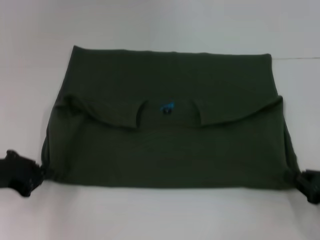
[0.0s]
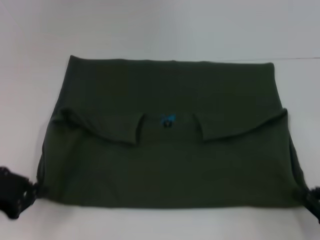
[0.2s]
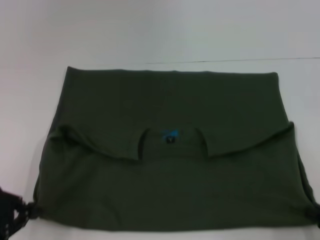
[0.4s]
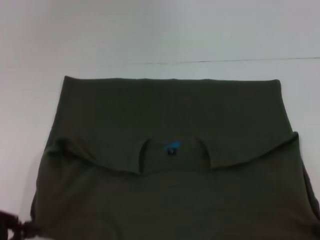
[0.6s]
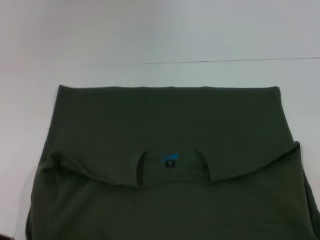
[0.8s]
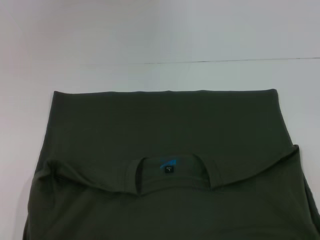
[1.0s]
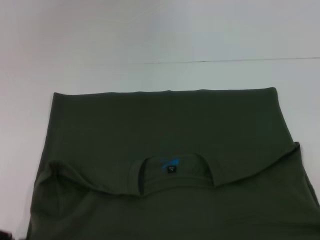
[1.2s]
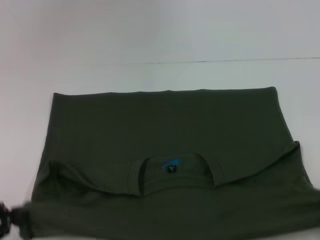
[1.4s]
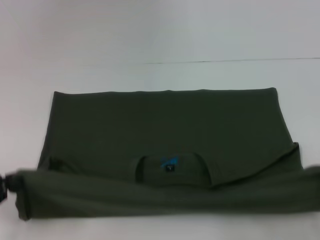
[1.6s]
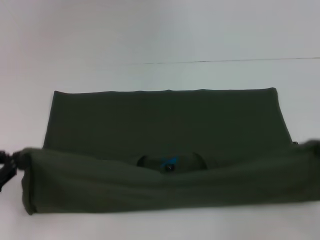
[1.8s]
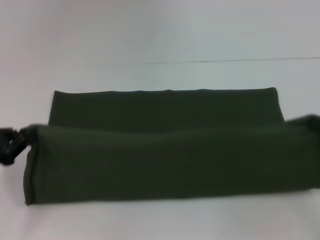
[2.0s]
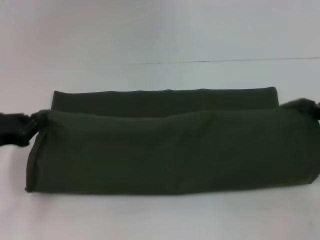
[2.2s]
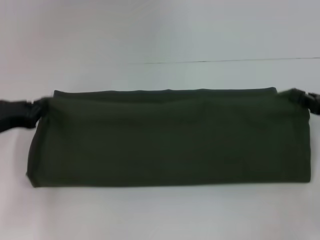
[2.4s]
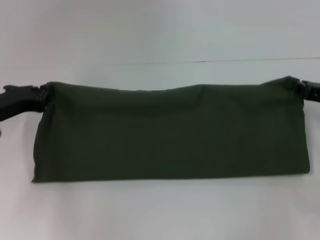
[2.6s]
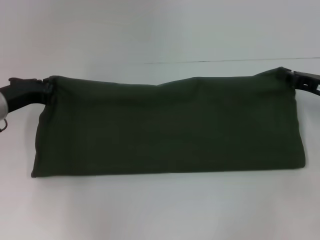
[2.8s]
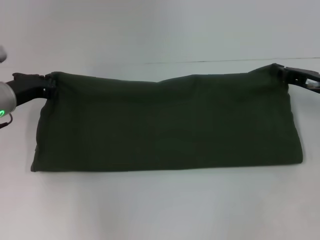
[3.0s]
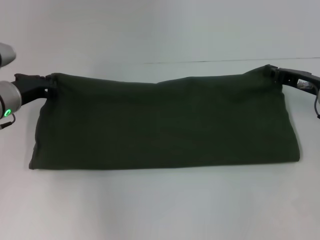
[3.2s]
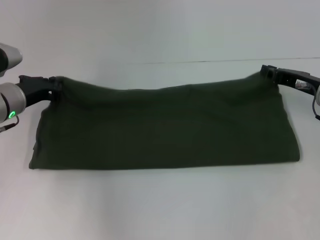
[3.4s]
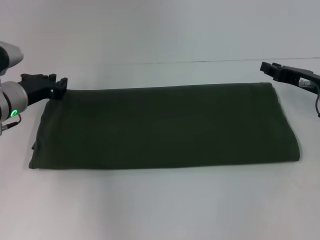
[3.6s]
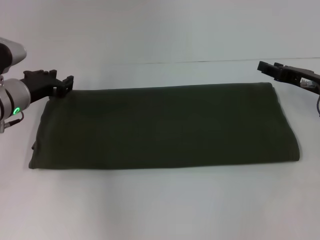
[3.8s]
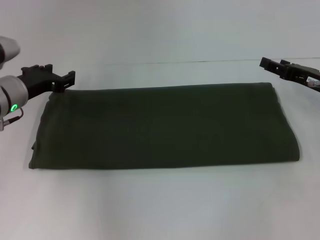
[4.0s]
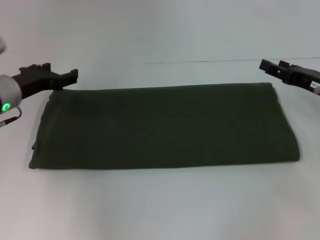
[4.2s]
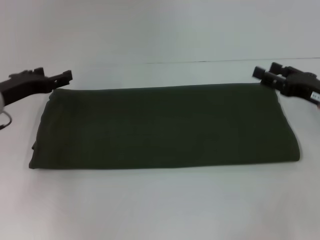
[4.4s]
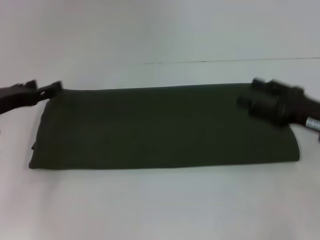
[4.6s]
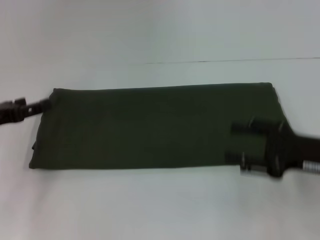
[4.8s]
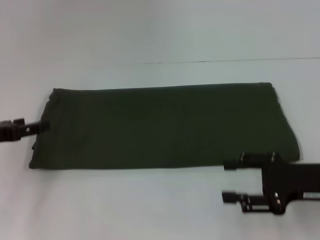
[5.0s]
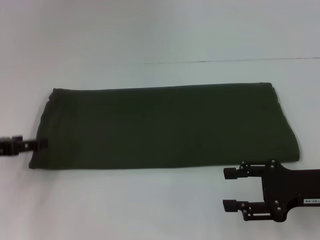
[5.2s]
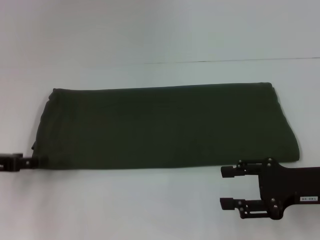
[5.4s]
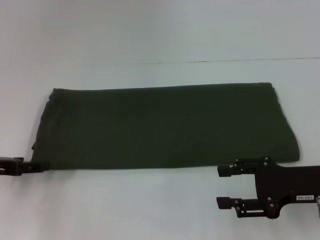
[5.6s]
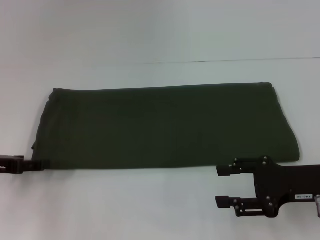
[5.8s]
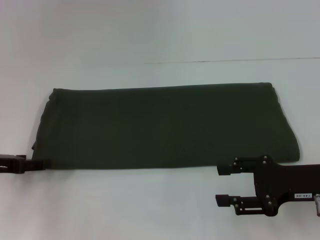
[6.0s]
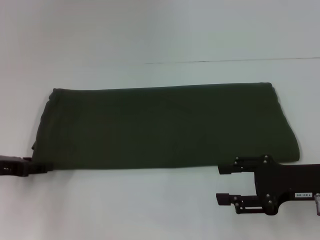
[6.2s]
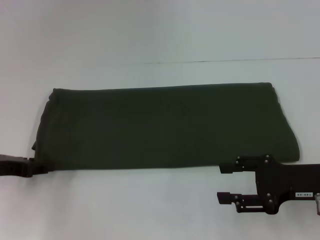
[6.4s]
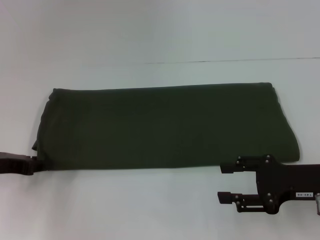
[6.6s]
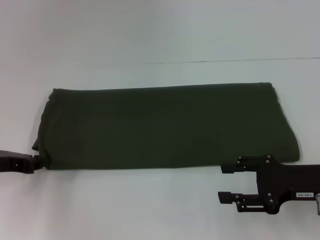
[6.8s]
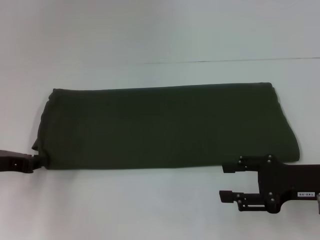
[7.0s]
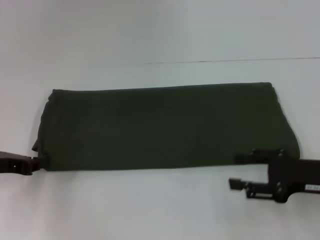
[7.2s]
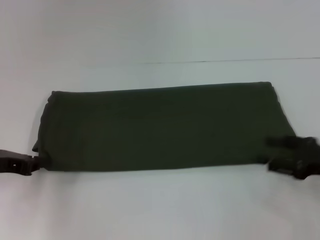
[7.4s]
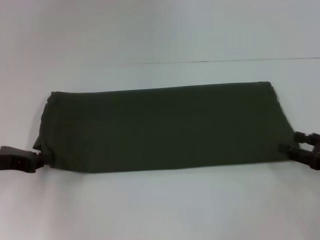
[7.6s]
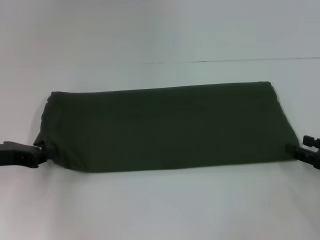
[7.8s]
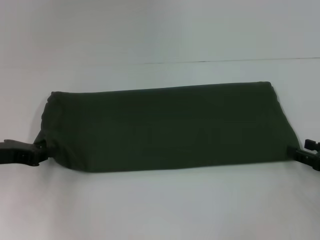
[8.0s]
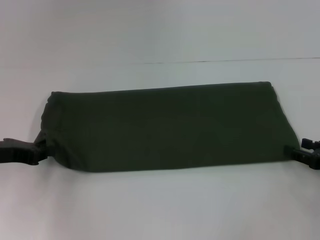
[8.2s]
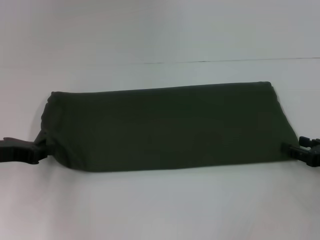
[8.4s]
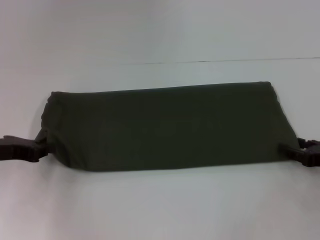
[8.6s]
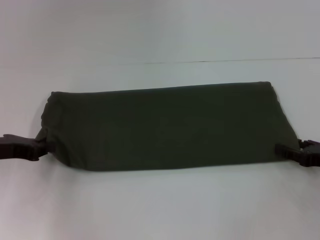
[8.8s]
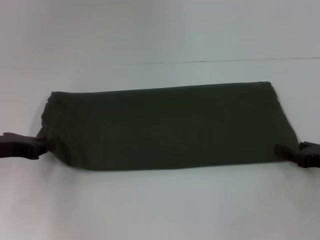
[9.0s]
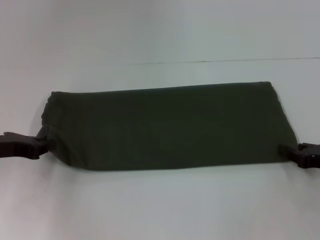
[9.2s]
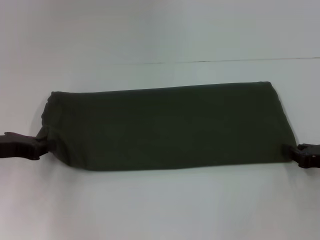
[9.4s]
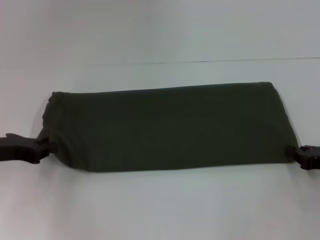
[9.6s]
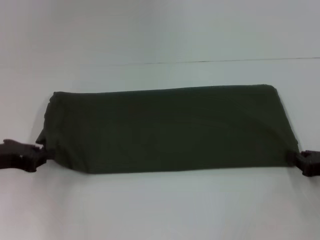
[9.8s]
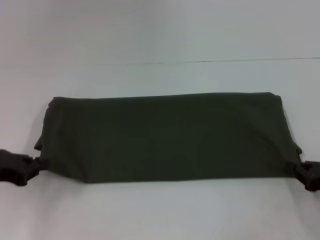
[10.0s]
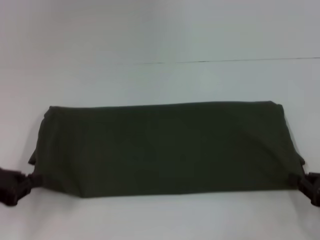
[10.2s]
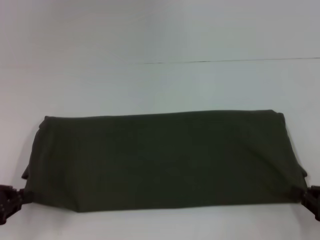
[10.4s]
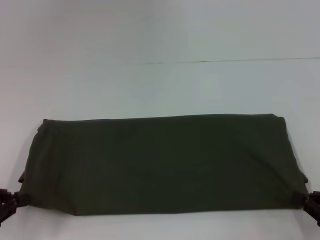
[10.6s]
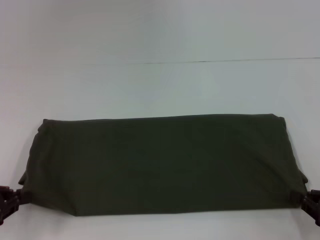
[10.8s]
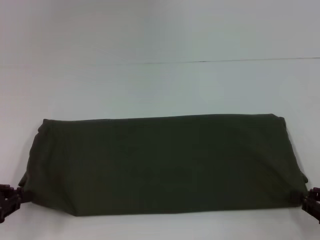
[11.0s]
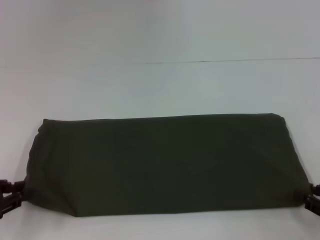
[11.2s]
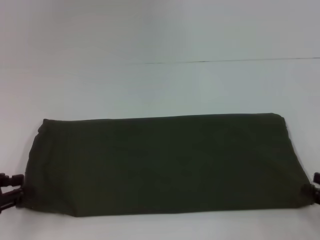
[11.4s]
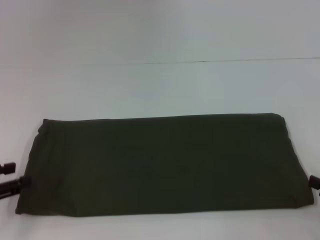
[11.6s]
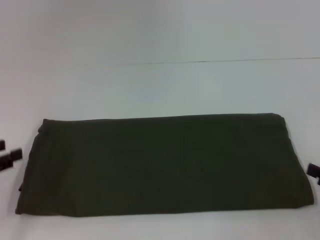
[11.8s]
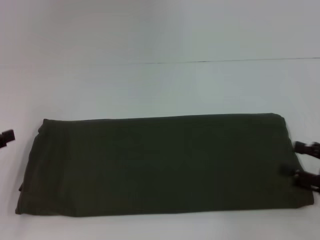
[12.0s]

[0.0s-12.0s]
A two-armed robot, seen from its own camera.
Step, 0.8s to 3.8s: Fold the clothes with your left hand.
Step, 0.8s to 3.8s: Fold the clothes with your right hand.
Step, 4.0s to 12.0s: Pull the clothes with your left hand.
Step, 4.0s to 12.0s: Pull the clothes with your right hand.
0.0s to 1.6s: The left gripper moves backward and to the left, some 10 cm.
1.6s to 3.0s: The right gripper goes approximately 20 cm forward, while the left gripper travels forward and to the right by about 20 cm.
3.0s to 4.4s: The right gripper opens; the left gripper opens up.
4.4s to 6.0s: Both grippers move backward, about 10 cm.
6.0s to 7.6s: The left gripper closes its fingers, while the right gripper shifts approximately 10 cm to the right.
7.6s to 9.0s: There are only small adjustments of the grippers.
9.0s to 10.4s: The grippers both shift backward by some 10 cm. The right gripper closes up.
10.4s to 12.0s: The left gripper opens its fingers; the right gripper opens up.

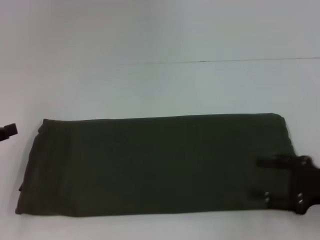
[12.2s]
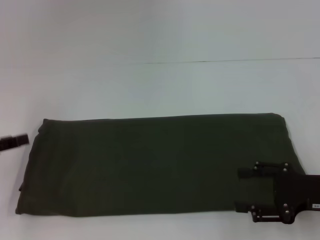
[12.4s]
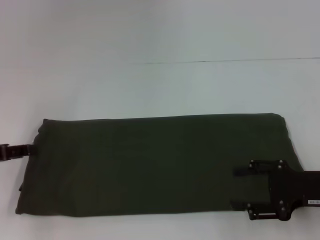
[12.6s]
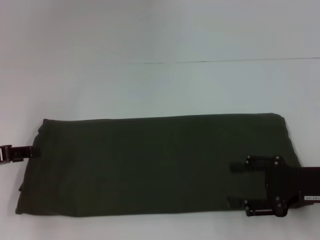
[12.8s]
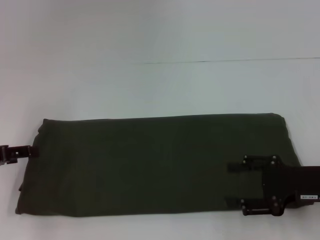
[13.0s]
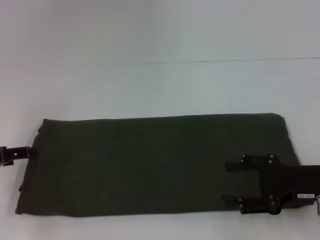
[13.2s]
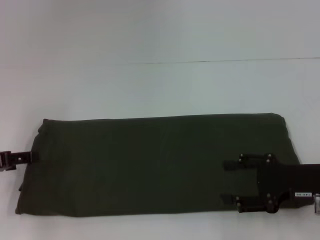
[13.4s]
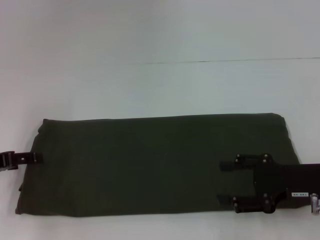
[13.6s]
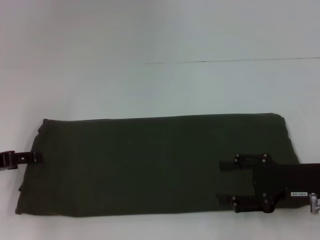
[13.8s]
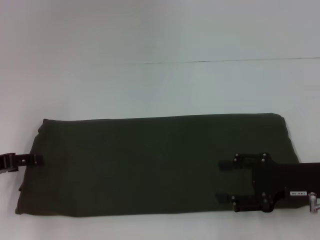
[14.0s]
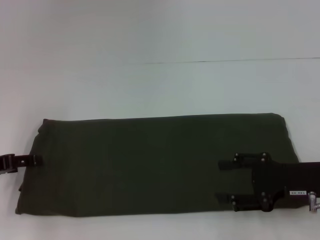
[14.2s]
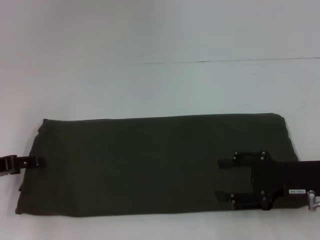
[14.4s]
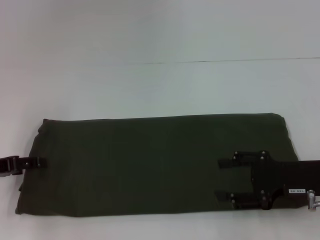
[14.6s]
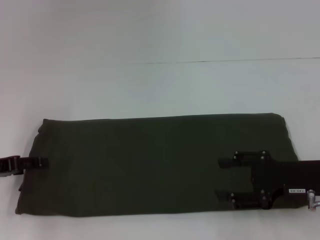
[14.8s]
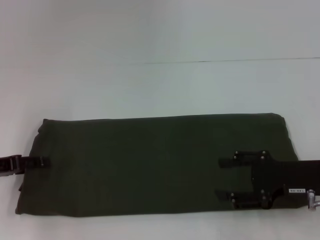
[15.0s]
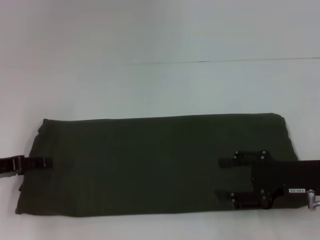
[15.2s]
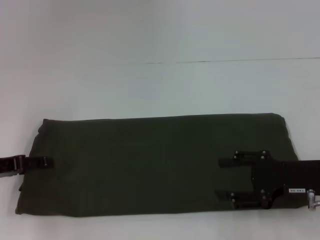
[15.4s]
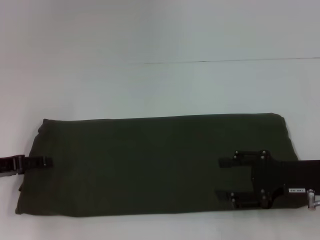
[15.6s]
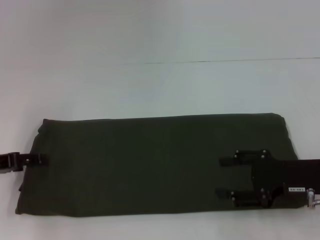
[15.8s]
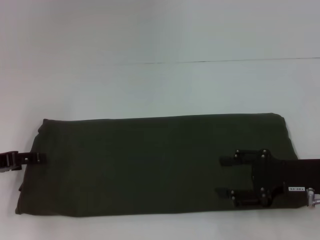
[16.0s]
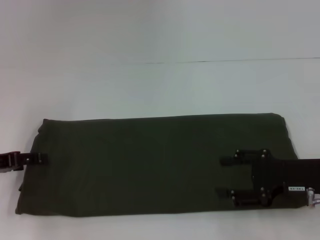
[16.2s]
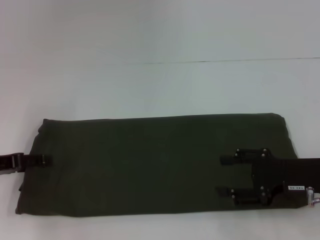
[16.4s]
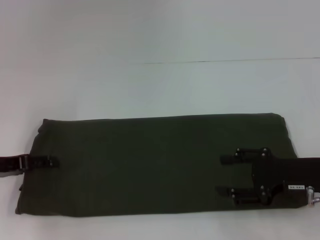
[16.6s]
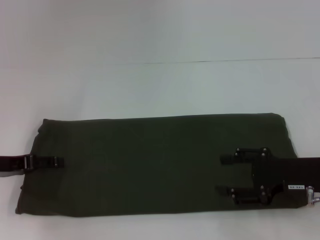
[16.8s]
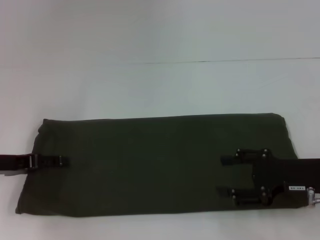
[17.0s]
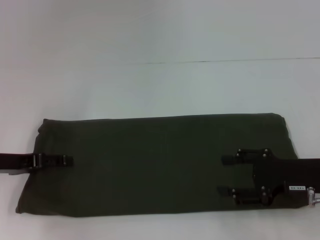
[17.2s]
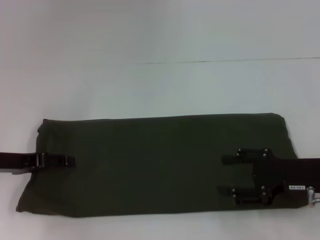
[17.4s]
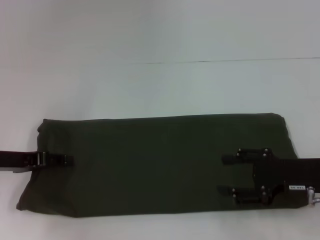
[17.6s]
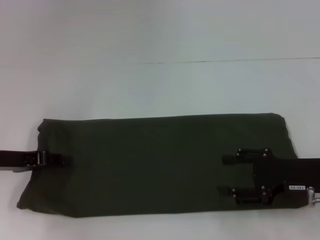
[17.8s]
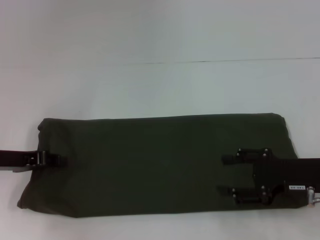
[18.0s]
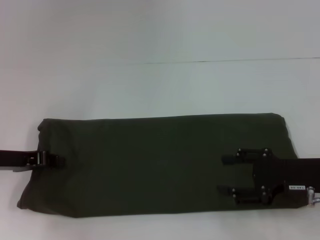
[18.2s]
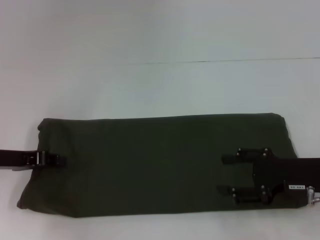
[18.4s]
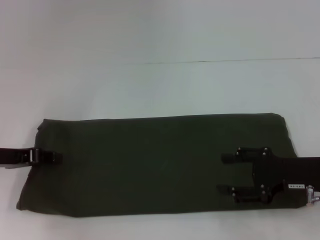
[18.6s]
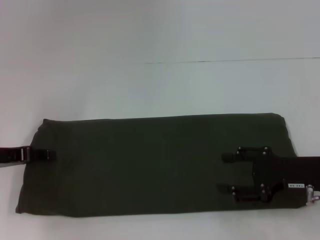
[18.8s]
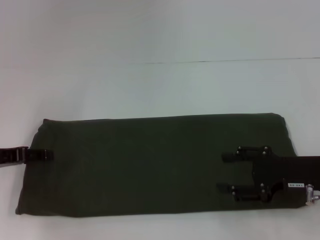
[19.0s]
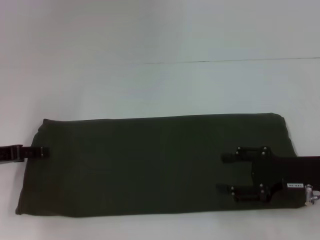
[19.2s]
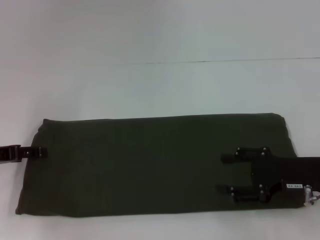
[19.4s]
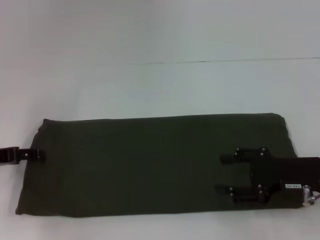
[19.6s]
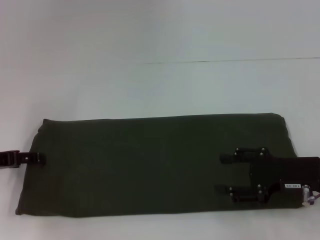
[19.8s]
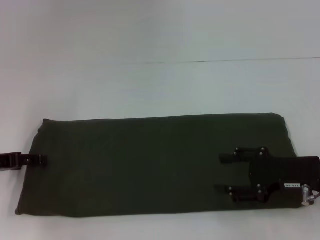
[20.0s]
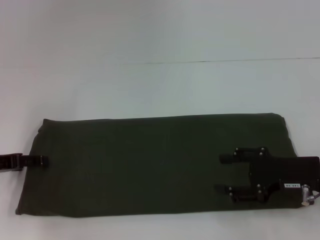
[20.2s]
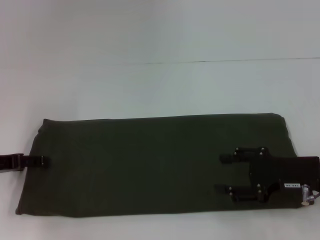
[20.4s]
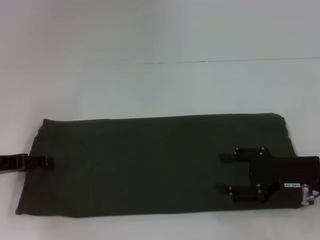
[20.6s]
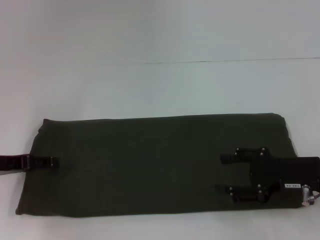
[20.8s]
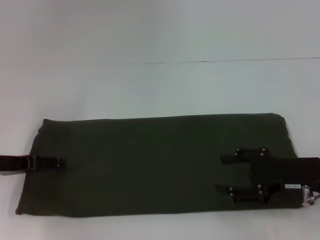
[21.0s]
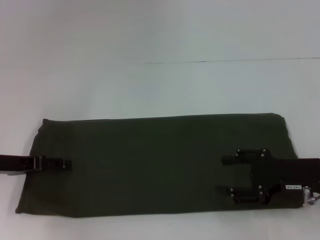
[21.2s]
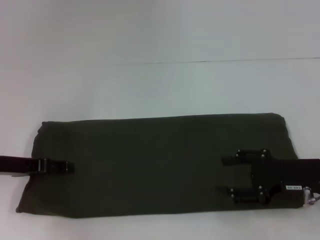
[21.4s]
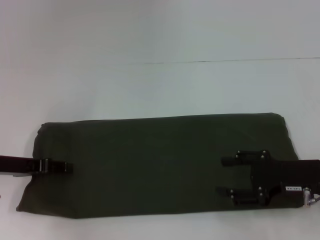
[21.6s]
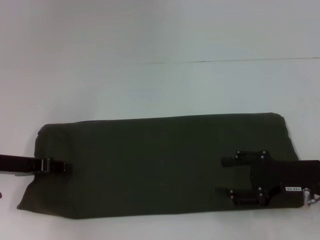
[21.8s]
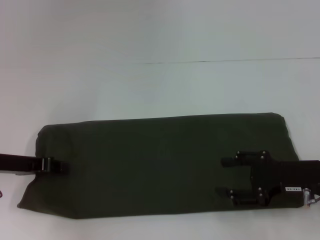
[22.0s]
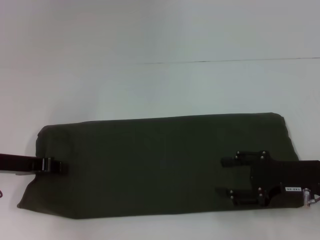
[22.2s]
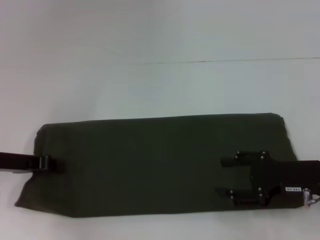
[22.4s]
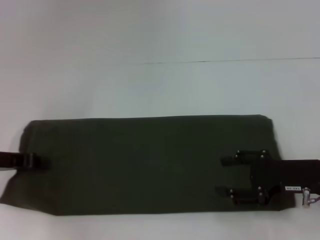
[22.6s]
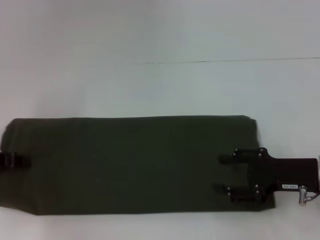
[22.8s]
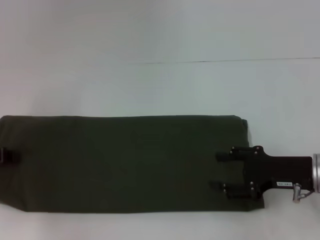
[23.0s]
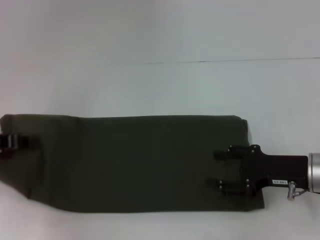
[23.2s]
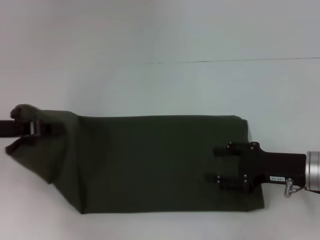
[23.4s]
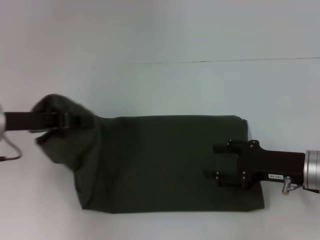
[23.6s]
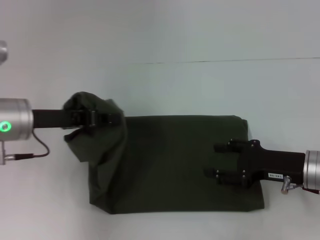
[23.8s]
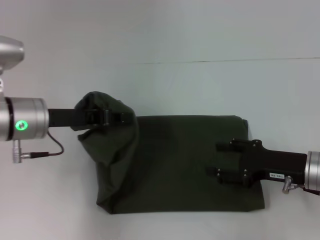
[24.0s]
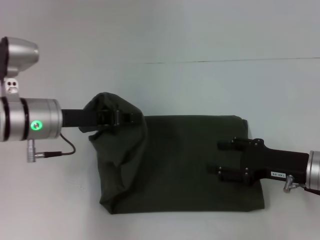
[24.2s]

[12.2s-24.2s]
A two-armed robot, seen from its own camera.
12.2s to 13.8s: The right gripper shifts by roughly 5 cm.
13.8s to 15.2s: Both grippers stay put.
15.2s to 16.6s: Both grippers stay about where they are.
16.6s to 18.2s: The left gripper closes up.
18.2s to 19.8s: The left gripper opens its fingers.
19.8s to 21.2s: The grippers move only a little.
21.2s to 22.6s: The left gripper closes its fingers.
22.6s to 24.2s: The left gripper is displaced to the right by some 10 cm.
